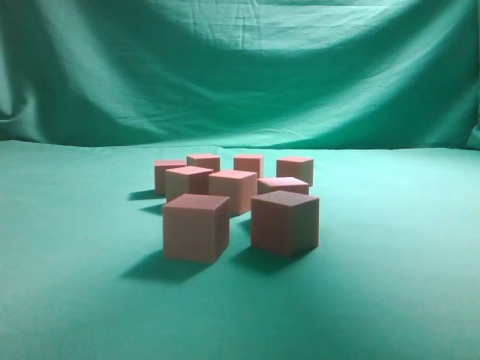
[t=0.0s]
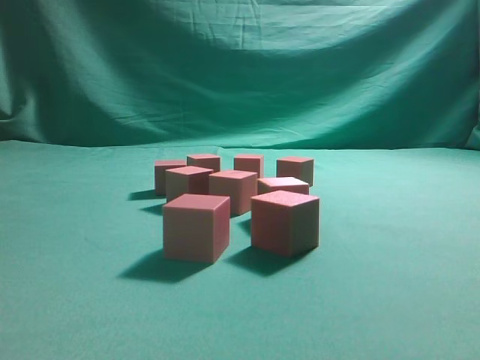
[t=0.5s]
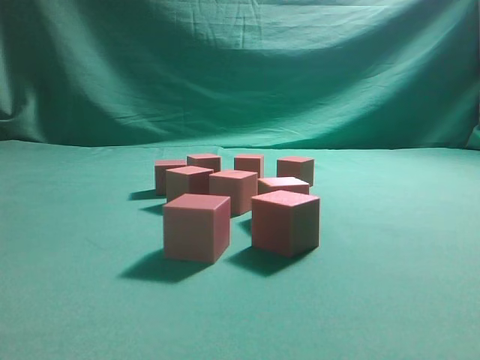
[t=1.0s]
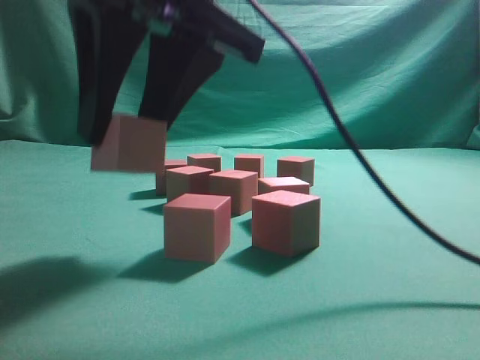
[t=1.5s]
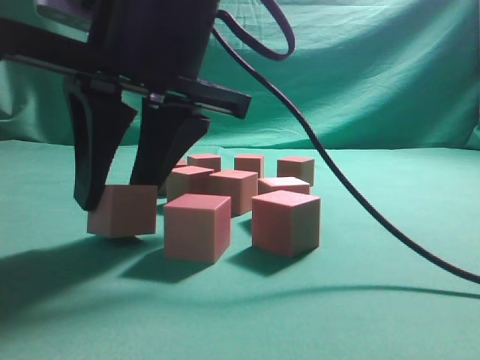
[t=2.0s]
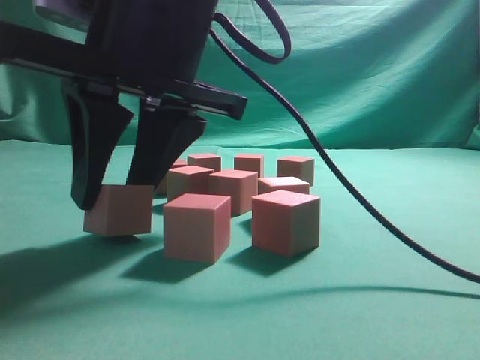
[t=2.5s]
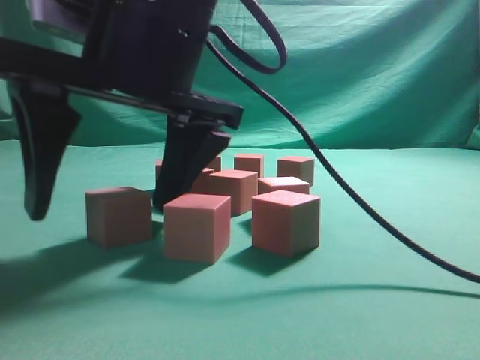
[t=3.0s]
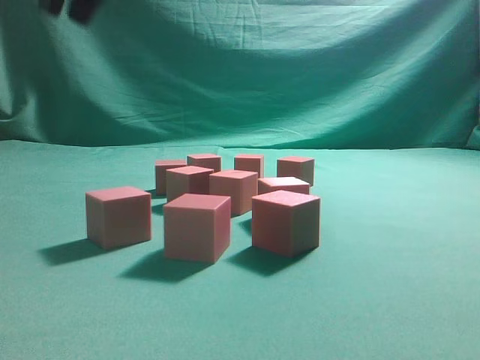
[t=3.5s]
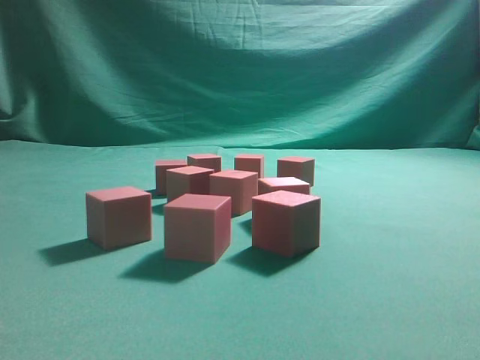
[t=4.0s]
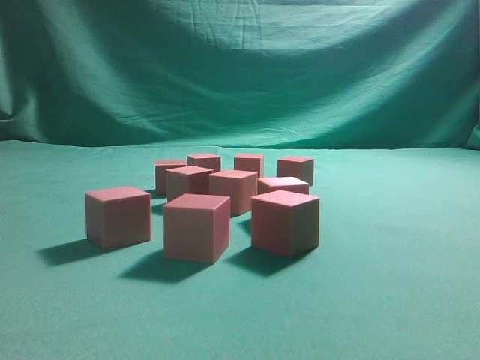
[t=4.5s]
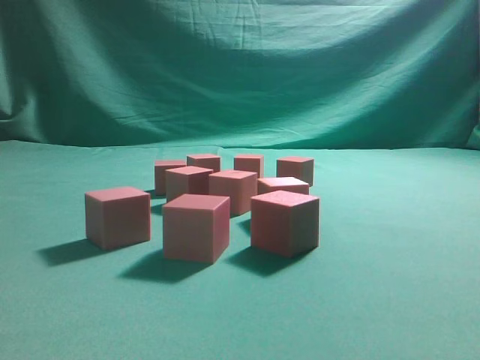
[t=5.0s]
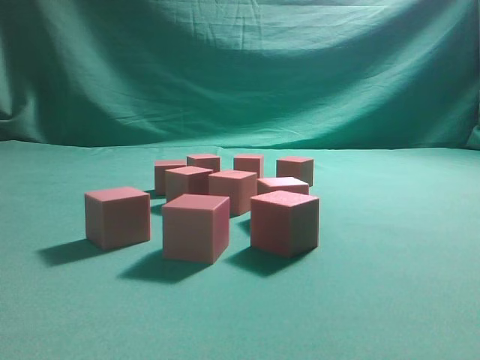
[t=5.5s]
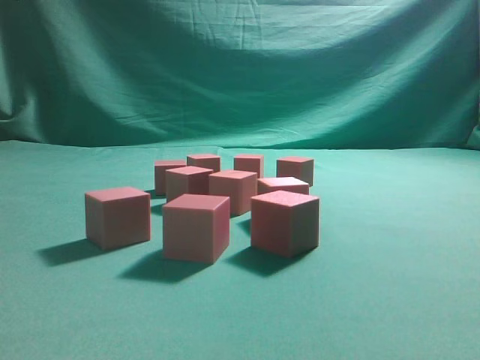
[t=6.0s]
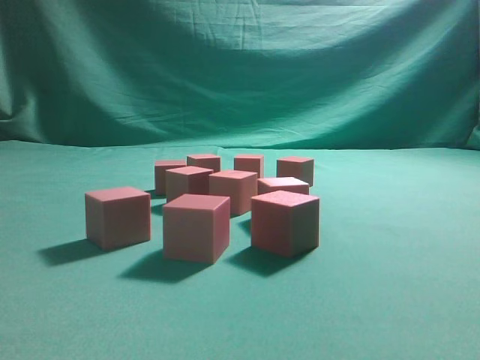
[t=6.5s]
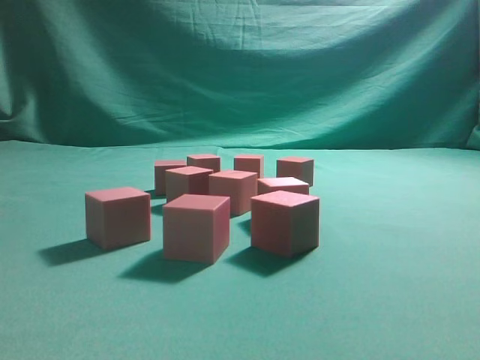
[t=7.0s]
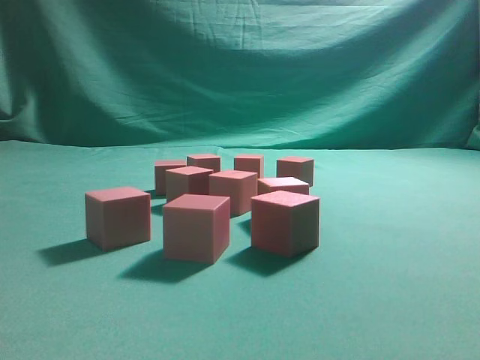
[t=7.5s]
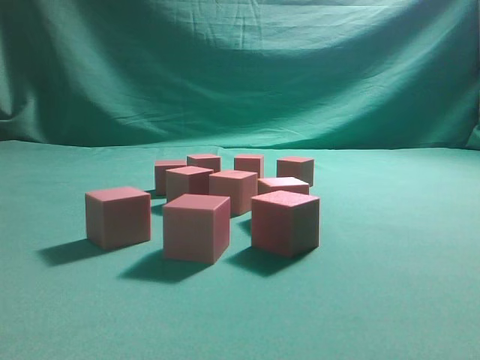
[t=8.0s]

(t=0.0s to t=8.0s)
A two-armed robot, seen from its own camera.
Task of the whole recording: pick up the multiple cubes in two columns one by one and place them in another position on the table.
Step, t=0.0s - t=3.0s: Place the block at the correct position to assemble the letter S.
t=0.0s - t=2.0s: The right gripper moves to the left, downward and backward, about 40 cm.
t=2.0s - t=4.0s: The right gripper is displaced upward by some 30 cm, and closes up.
